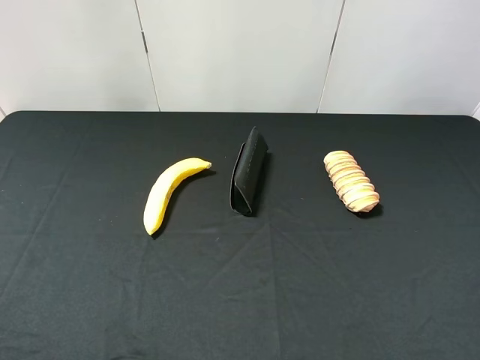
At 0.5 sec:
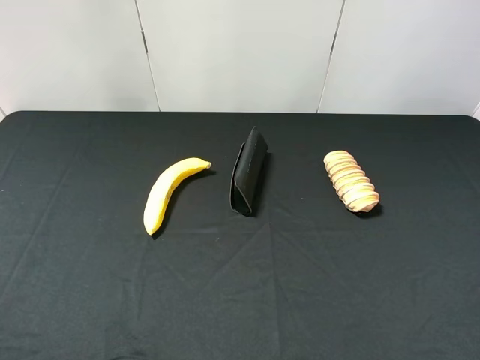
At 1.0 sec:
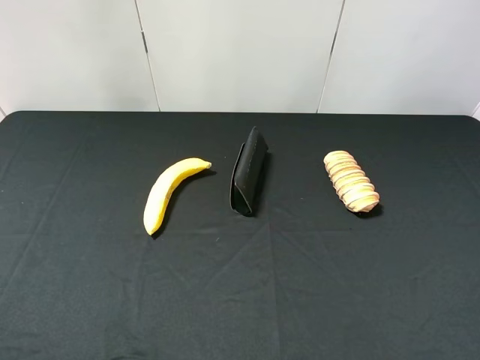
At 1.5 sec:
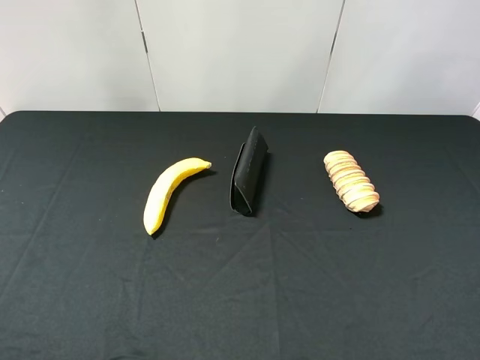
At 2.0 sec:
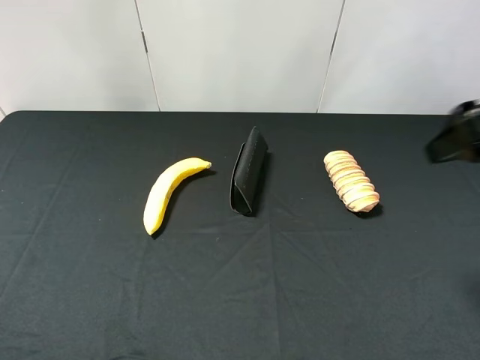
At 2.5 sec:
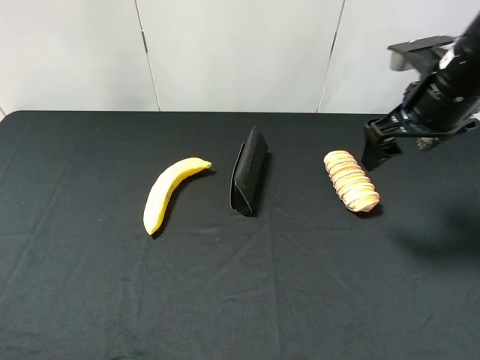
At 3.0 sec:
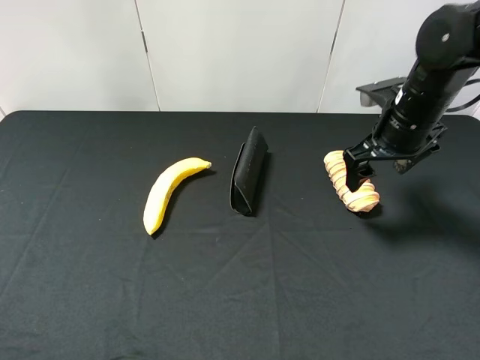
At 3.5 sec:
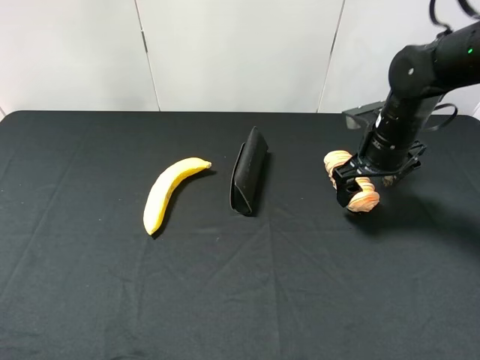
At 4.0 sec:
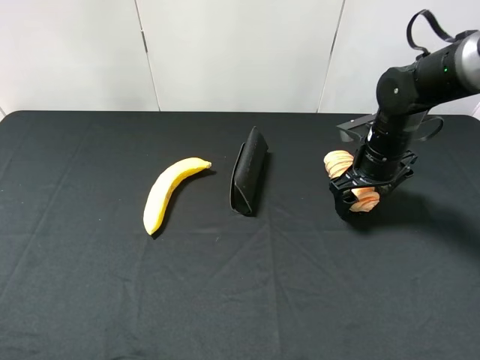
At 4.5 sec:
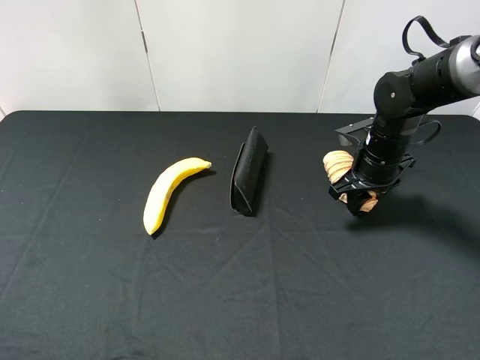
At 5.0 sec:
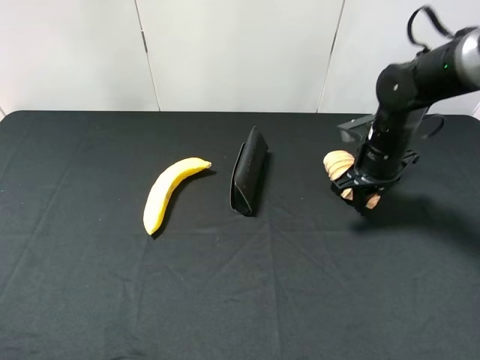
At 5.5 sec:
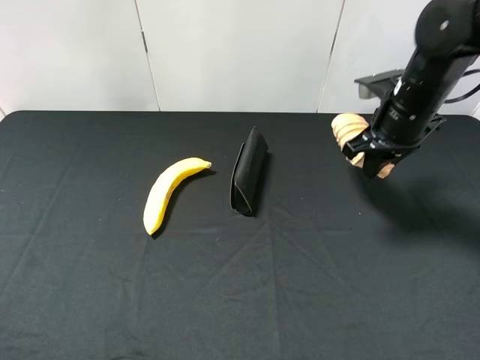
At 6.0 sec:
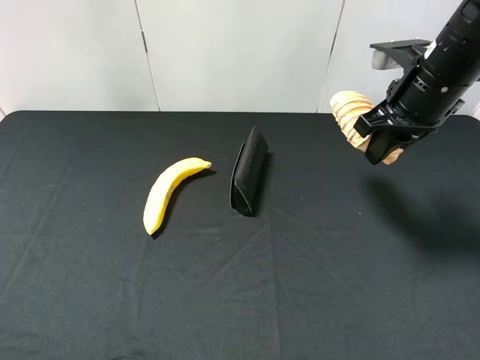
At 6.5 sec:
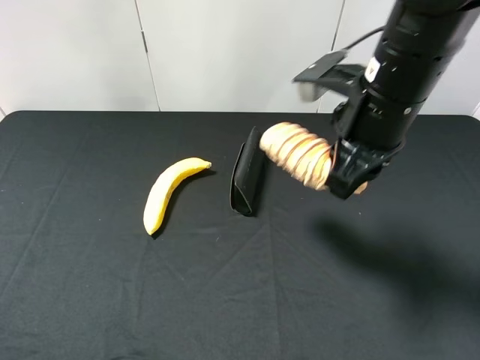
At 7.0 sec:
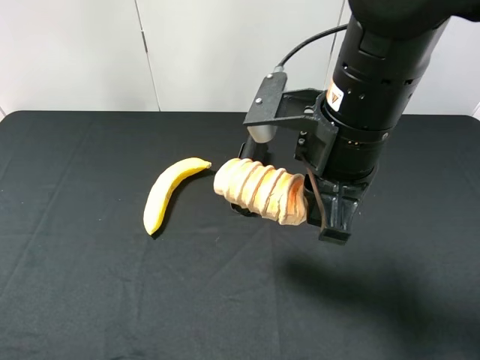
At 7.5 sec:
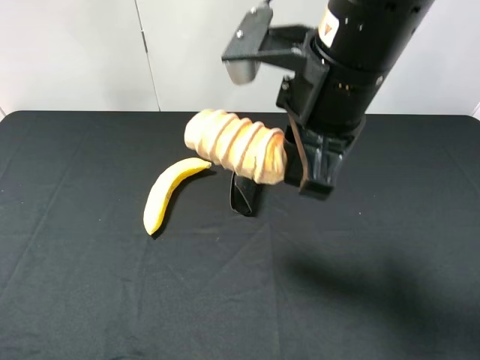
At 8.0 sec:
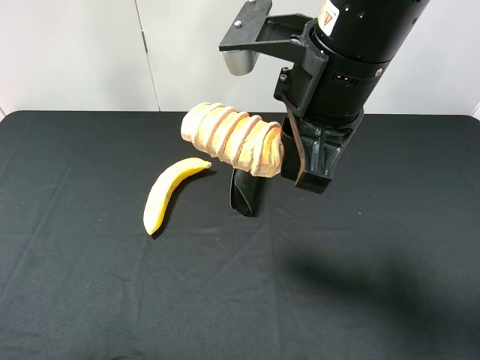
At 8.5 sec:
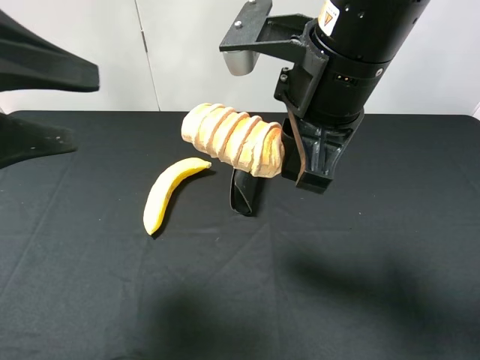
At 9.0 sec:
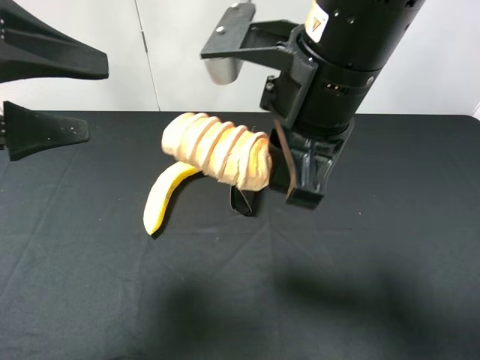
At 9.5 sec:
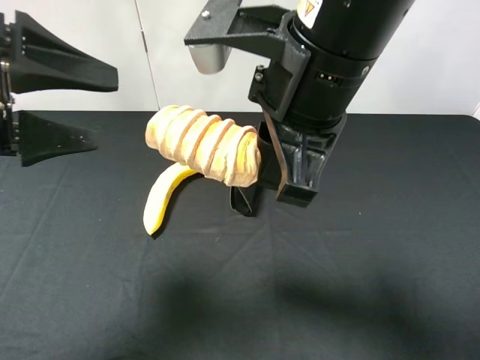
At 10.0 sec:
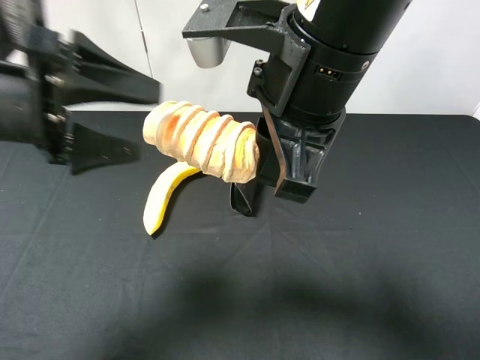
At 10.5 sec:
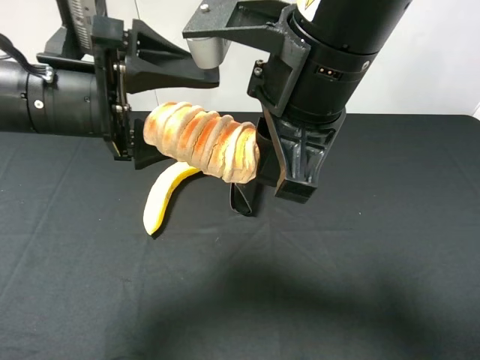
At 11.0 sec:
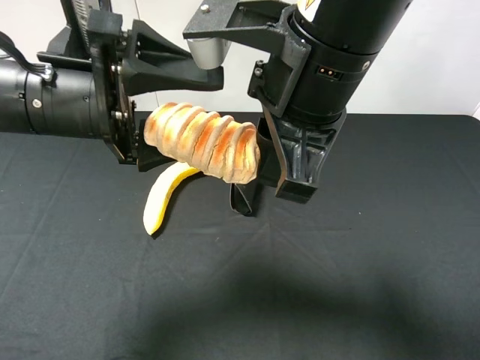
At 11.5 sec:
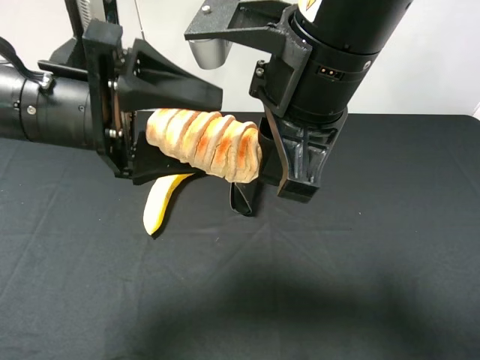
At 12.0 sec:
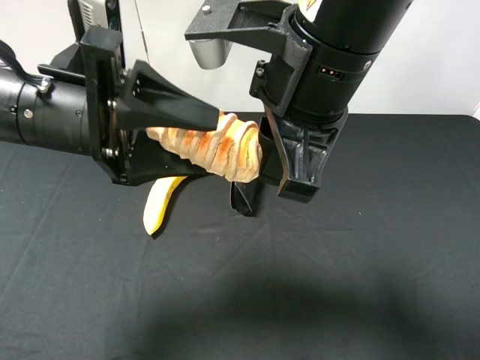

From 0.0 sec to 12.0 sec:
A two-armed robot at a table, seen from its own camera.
Task of the whole recording: use the right gripper to pick up the item and transfer it from the right gripper to the left gripper.
Step, from 0.0 sec to 5.0 sec: Use the right gripper to grab the bread on the right side of the table.
From 0.0 sec to 2.0 sec: The right gripper is displaced forward by approximately 20 cm.
From 2.0 sec to 4.0 sec: The right gripper moves downward and forward, about 25 cm.
From 4.0 sec to 6.0 sec: The right gripper travels upward by roughly 15 cm, and closes.
From 6.0 sec to 8.0 sec: The left gripper moves forward, about 10 cm; the right gripper shifts approximately 15 cm to the left and backward.
From 8.0 sec to 10.0 sec: The left gripper is displaced forward, to the right and downward by approximately 15 cm.
From 10.0 sec to 12.0 sec: The left gripper closes.

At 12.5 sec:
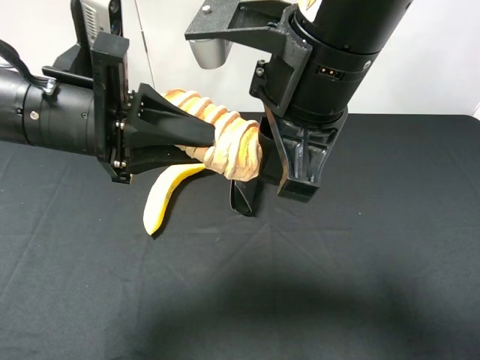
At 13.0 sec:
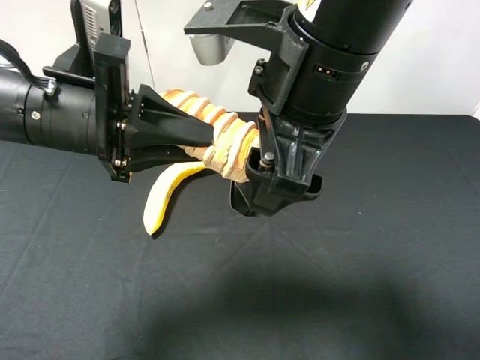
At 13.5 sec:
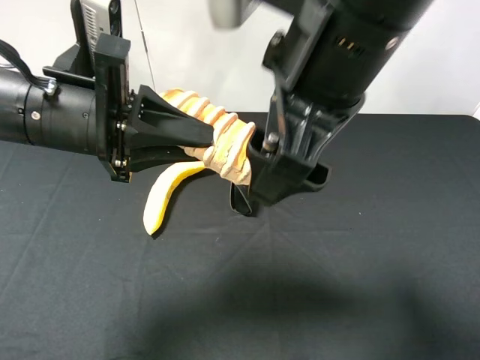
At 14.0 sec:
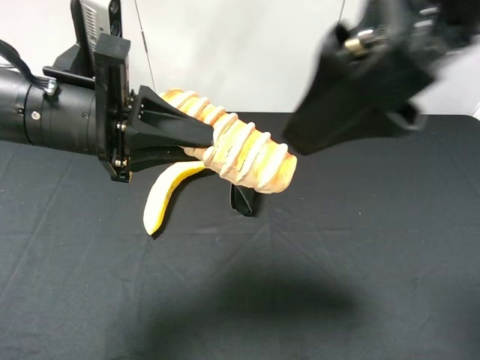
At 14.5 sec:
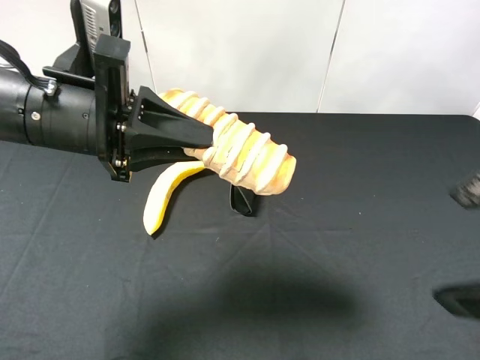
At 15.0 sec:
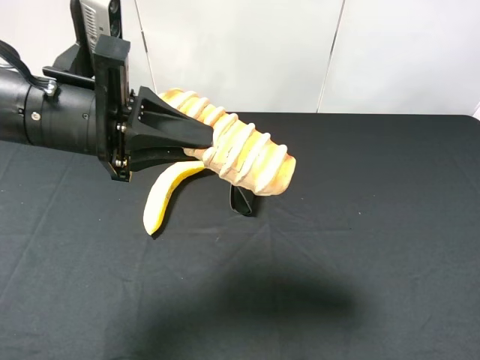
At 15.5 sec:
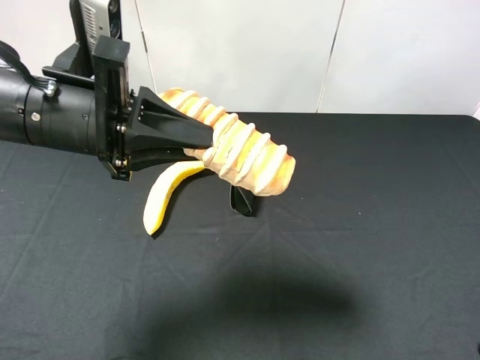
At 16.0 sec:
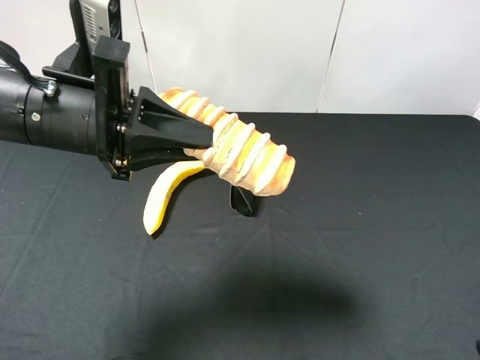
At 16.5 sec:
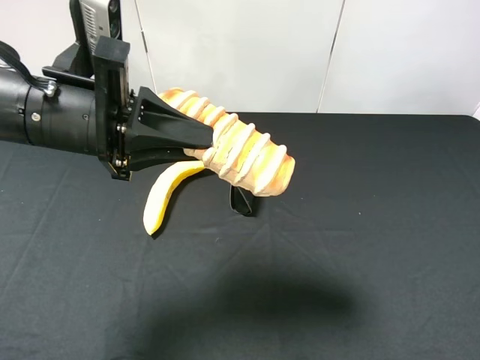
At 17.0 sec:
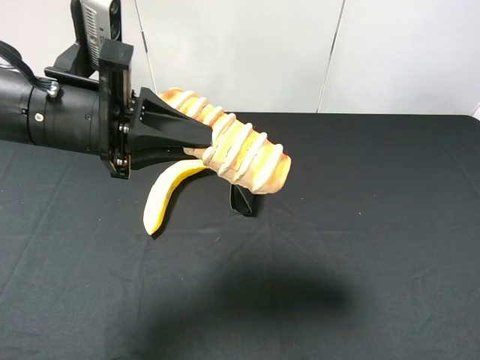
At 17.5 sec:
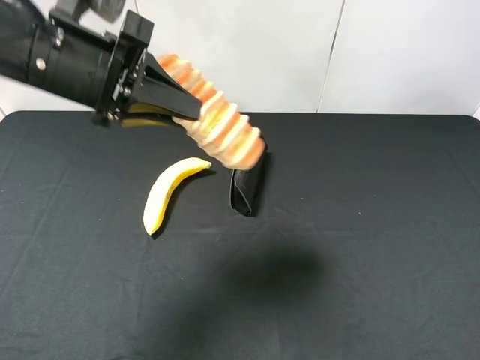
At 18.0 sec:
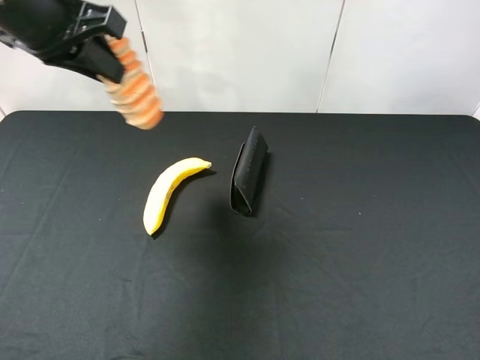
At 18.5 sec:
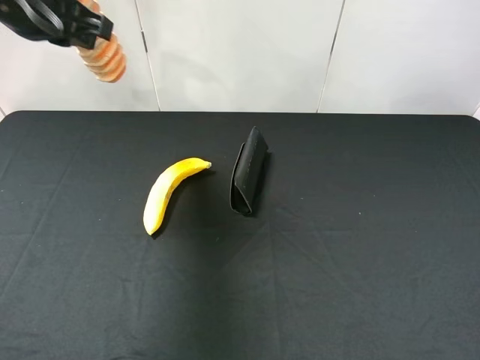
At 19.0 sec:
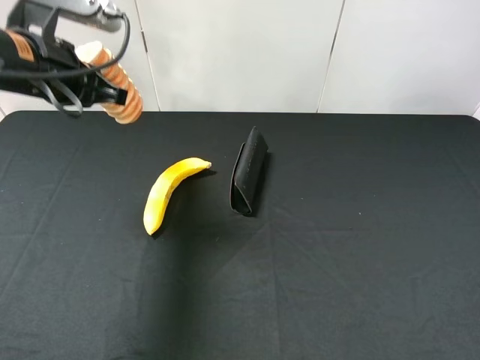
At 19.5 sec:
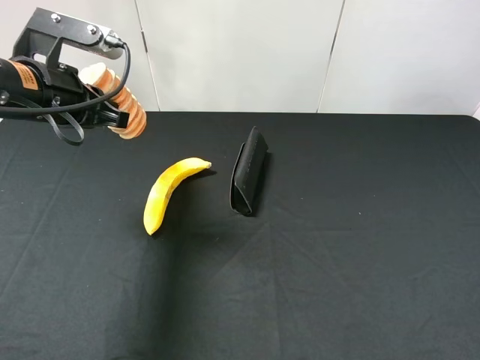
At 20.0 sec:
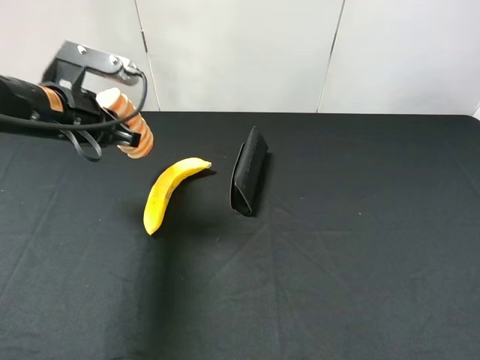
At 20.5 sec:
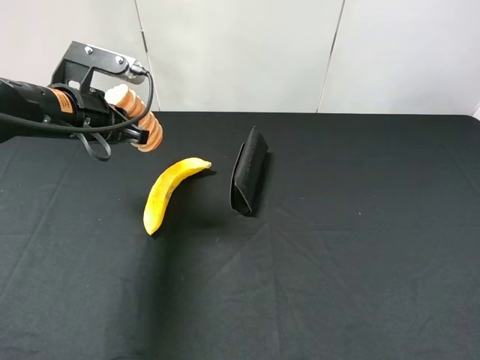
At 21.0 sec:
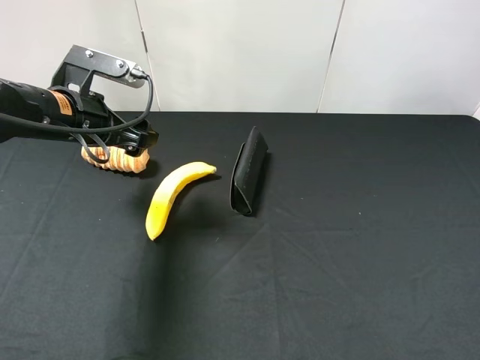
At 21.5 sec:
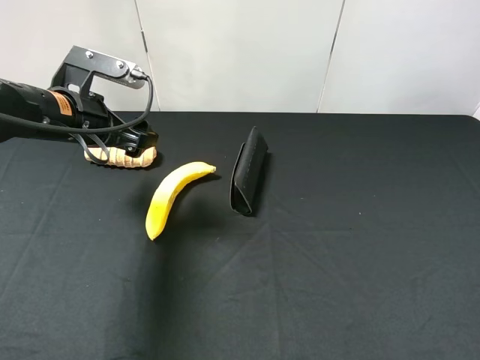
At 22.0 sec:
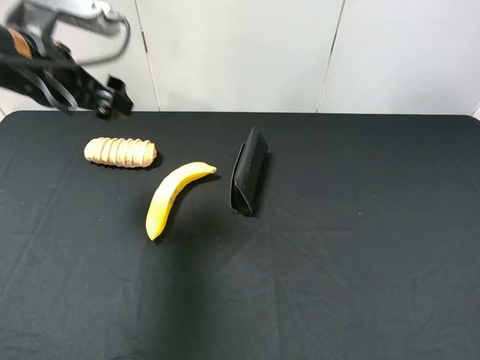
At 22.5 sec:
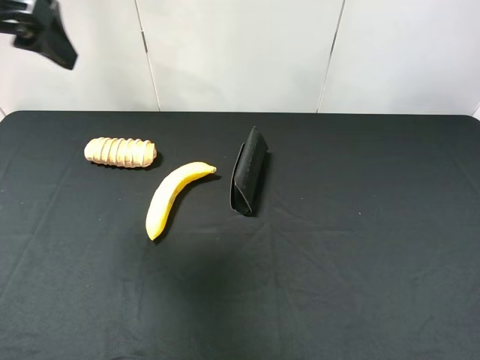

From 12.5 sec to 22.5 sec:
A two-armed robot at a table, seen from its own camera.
Task of the whole recording: use the right gripper to pick up the item and transfer it from the right gripper to the left gripper.
Step, from 14.0 sec to 21.0 sec: The left gripper places bread on the left side of the table.
From 12.5 sec to 14.5 sec: The right gripper heads to the right and backward, covering approximately 20 cm, and opens.
From 14.5 sec to 16.5 sec: The right gripper goes roughly 10 cm to the right, backward and downward.
From 16.5 sec to 18.5 sec: The left gripper moves forward, upward and to the left, approximately 15 cm.
From 18.5 sec to 20.5 sec: The left gripper heads downward, covering some 15 cm.
From 20.5 sec to 22.5 sec: The left gripper moves upward, approximately 20 cm, and opens up.

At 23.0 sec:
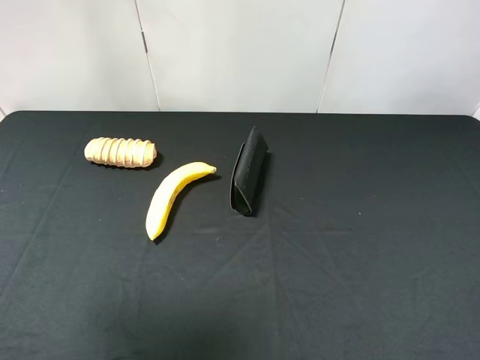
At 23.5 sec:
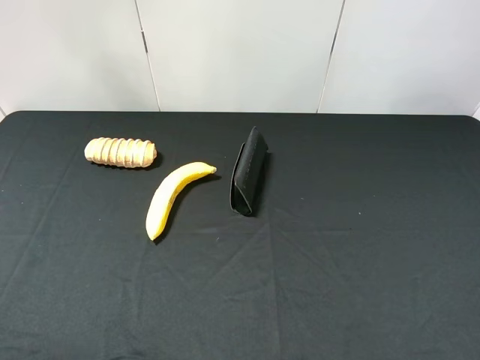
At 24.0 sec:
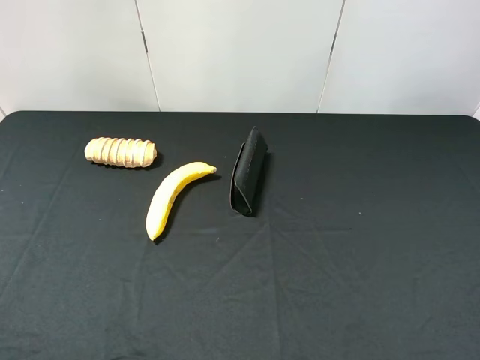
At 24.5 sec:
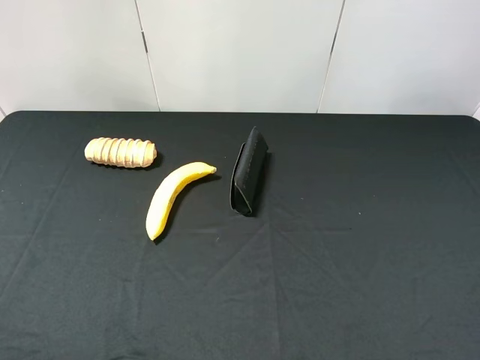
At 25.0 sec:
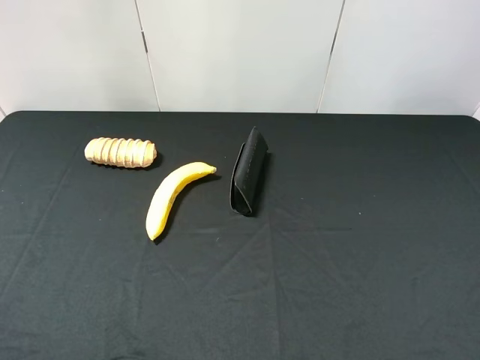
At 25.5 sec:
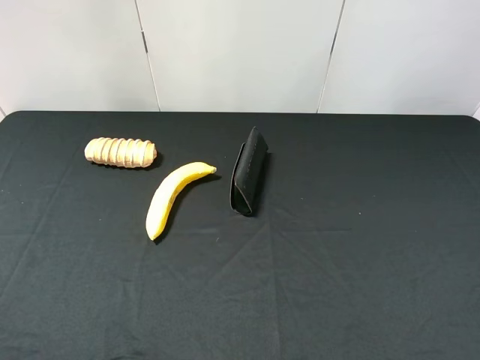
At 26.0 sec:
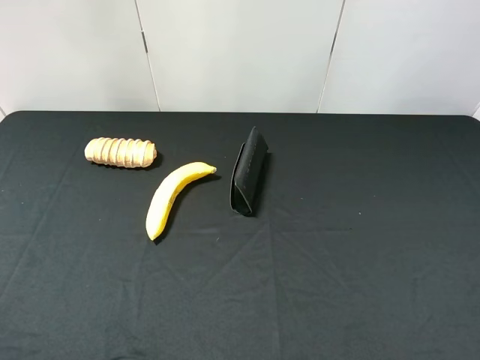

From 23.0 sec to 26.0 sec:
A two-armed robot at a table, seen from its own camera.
Task of the whole recording: use the right gripper to pick up the item and transfer it from the right gripper to the left gripper.
From 23.0 sec to 24.5 sec: The left gripper goes approximately 20 cm backward and downward.
